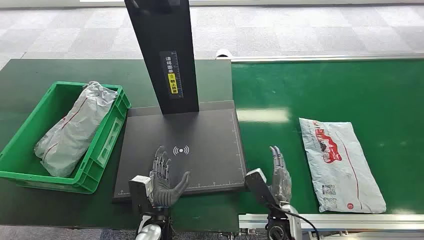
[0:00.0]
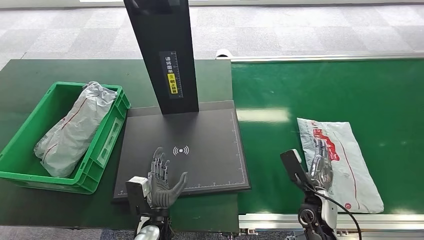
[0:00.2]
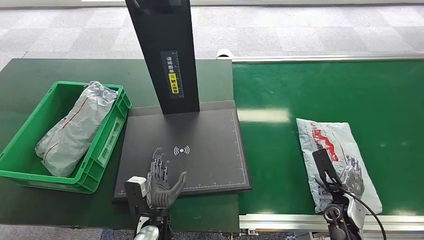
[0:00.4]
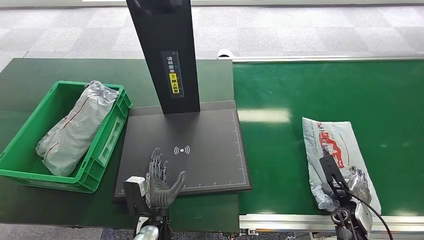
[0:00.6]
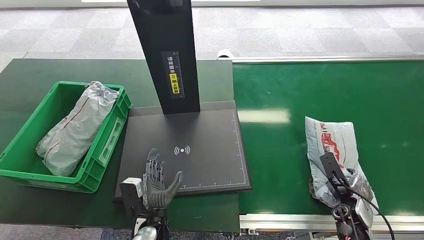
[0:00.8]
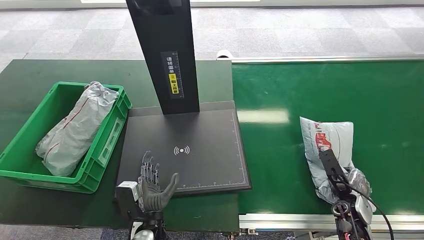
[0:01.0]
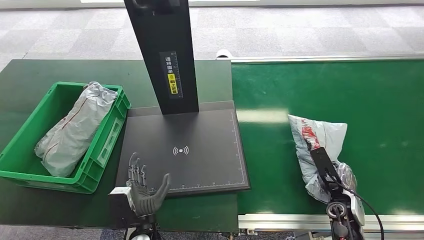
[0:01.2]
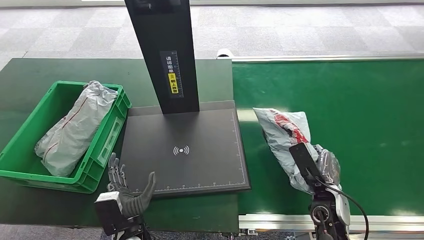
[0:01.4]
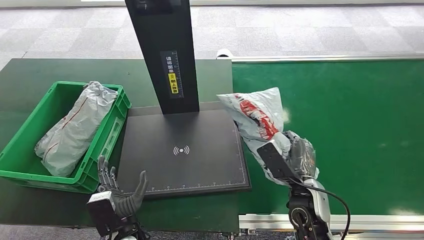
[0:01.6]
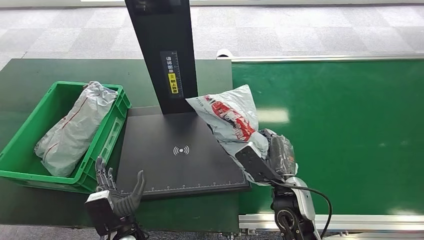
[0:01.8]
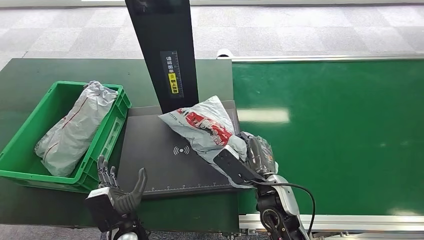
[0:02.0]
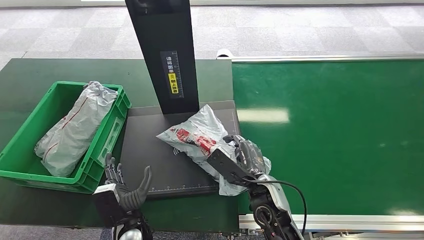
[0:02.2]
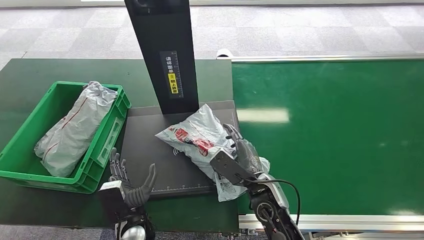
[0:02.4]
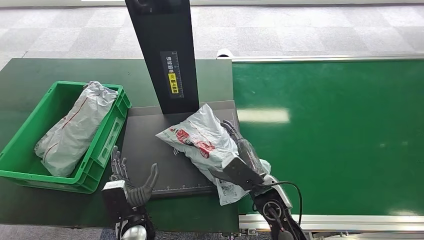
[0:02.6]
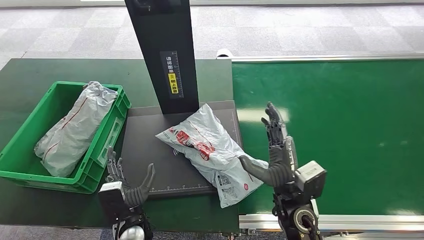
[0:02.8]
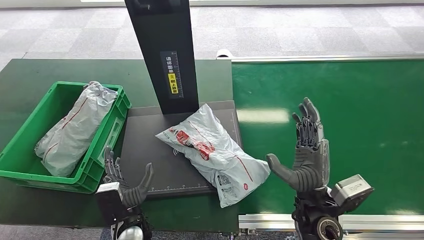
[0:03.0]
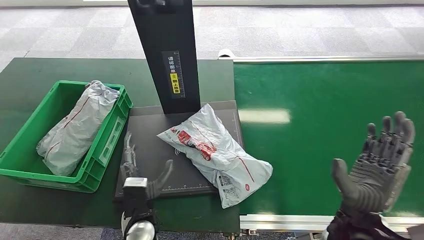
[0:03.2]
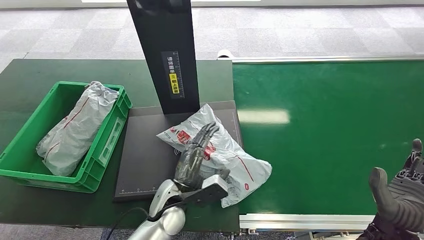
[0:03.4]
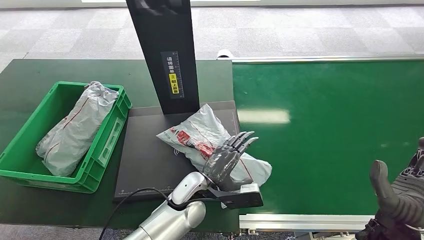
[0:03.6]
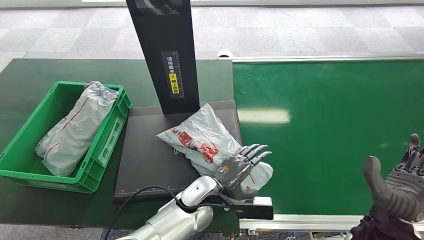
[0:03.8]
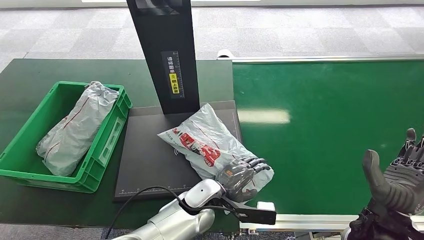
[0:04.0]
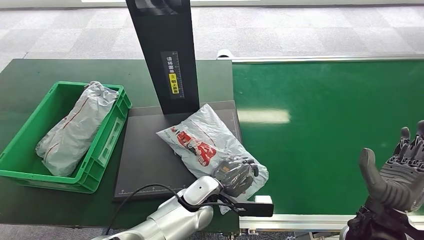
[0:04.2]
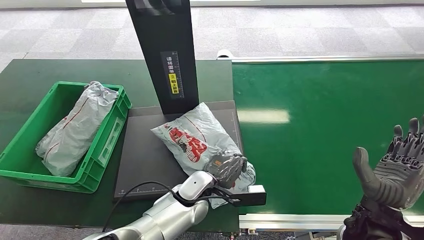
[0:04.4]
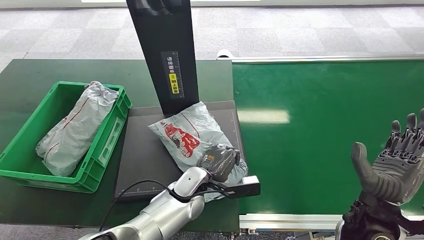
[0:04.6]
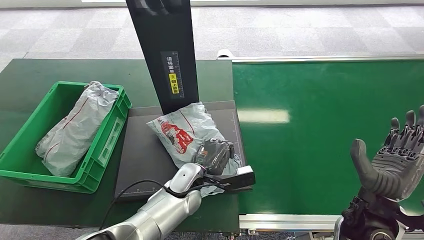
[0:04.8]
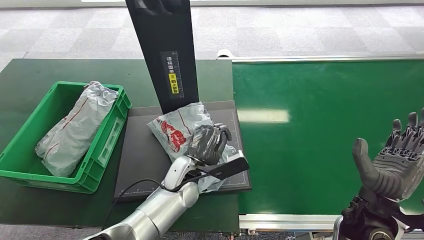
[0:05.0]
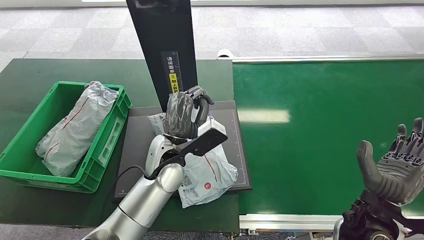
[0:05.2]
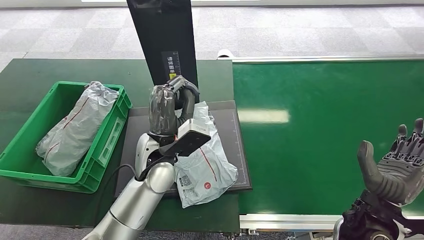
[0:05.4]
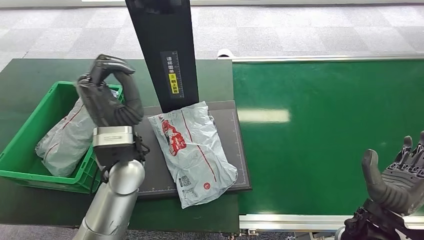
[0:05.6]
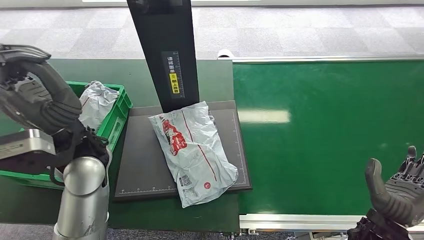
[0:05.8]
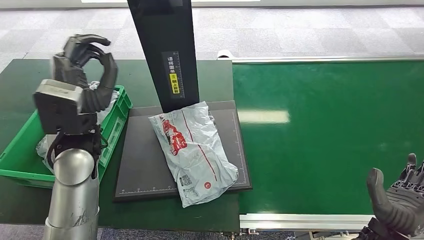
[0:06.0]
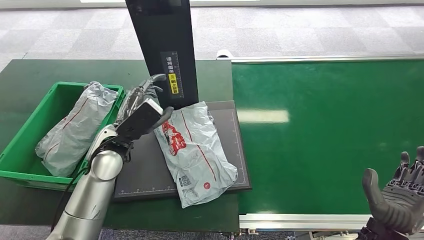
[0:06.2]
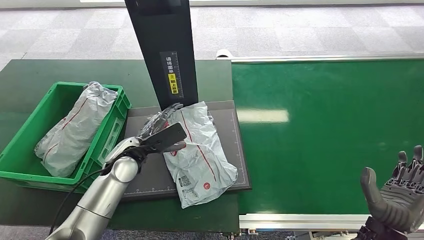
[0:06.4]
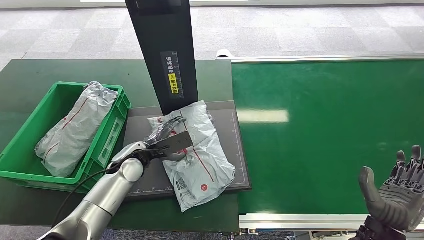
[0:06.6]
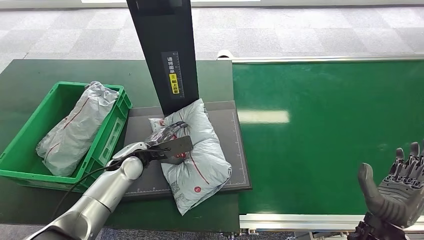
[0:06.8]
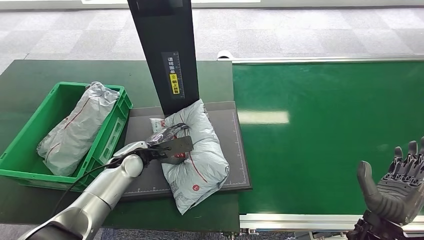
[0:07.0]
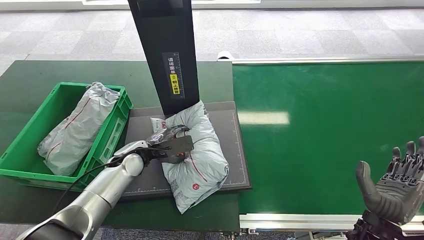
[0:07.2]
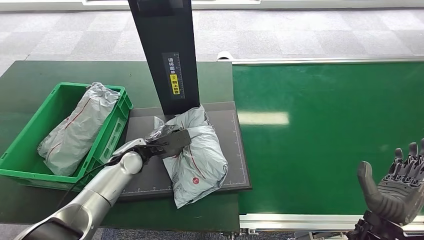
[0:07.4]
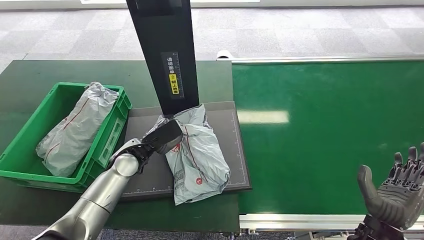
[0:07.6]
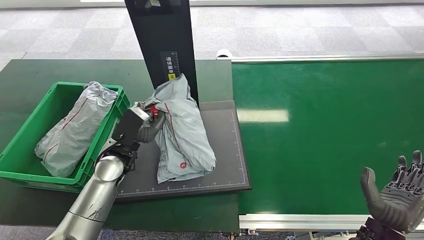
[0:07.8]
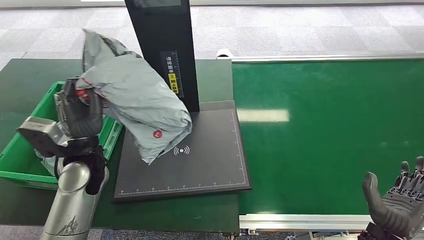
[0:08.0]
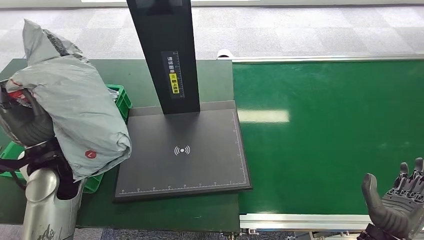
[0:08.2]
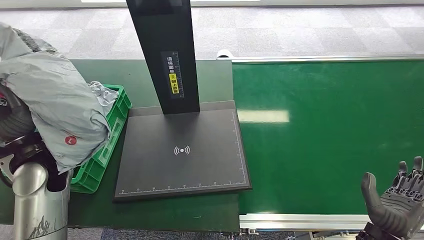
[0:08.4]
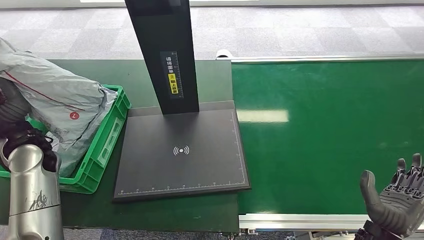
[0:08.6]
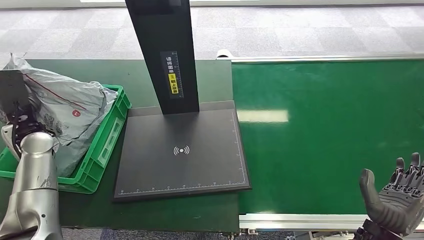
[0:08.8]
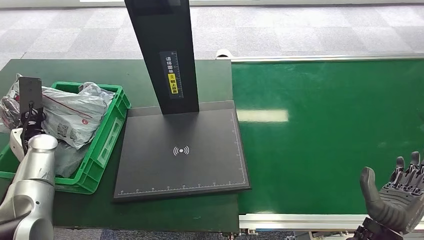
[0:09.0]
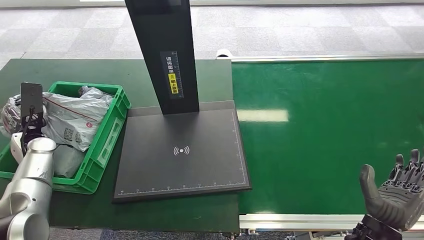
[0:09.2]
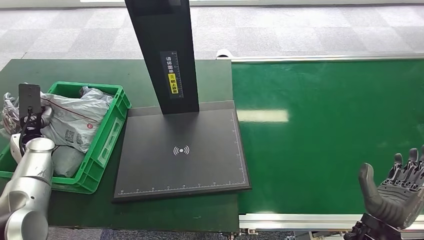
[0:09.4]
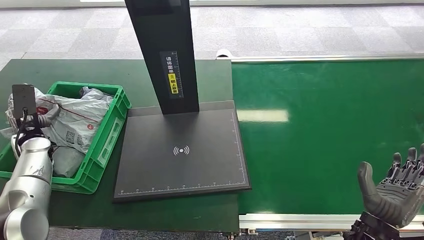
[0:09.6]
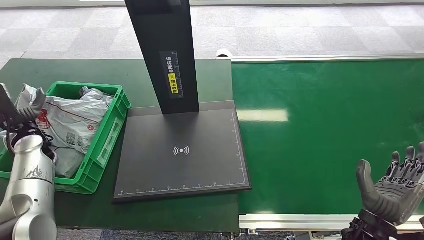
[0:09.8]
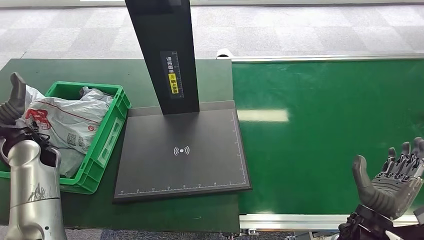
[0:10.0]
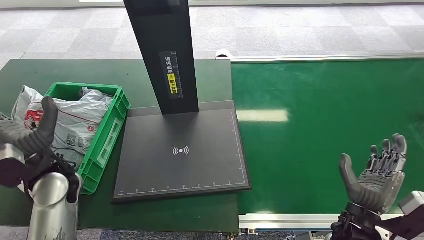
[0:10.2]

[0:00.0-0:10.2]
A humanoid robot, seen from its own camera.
Step, 0:00.0 to 0:01.8: Pick up the package from the conveyor belt.
Step, 0:02.4 to 0:03.6: Place the package onto the inbound machine.
Step, 0:03.8 to 0:08.2: Pick up the package from the inbound machine.
Step, 0:08.6 to 0:10.2: Place the package into the parcel locker.
0:01.4 to 0:03.0: The right hand is displaced upward and to the left by about 10 cm.
0:03.0 to 0:04.4: The right hand moves to the right, roughly 10 cm. The left hand shifts about 15 cm forward and to the right.
0:08.8 to 0:10.2: The left hand is displaced to the right and backward by approximately 15 cm.
